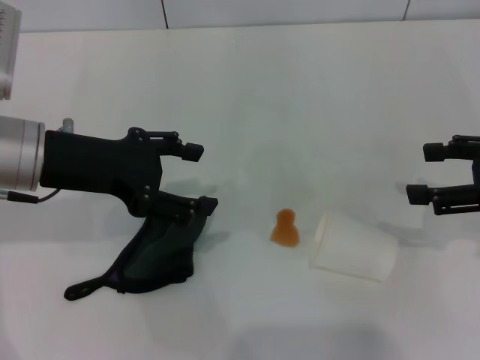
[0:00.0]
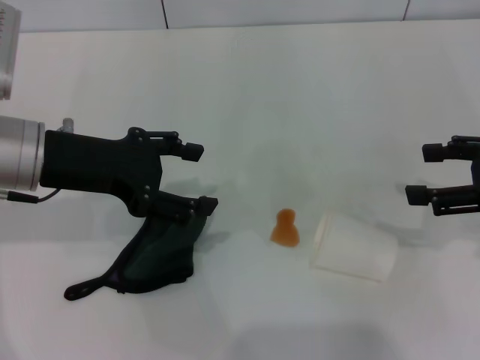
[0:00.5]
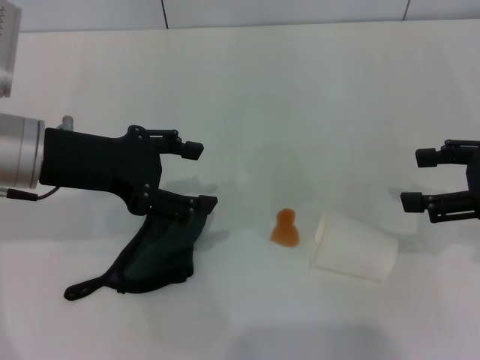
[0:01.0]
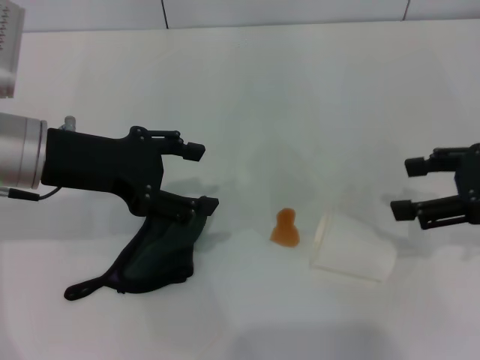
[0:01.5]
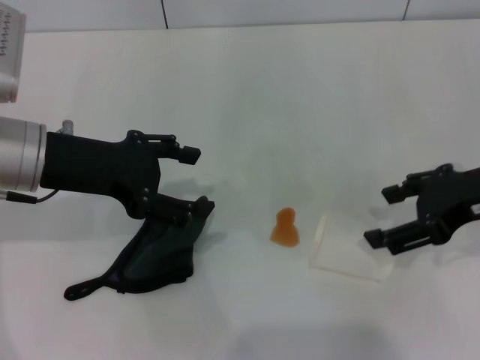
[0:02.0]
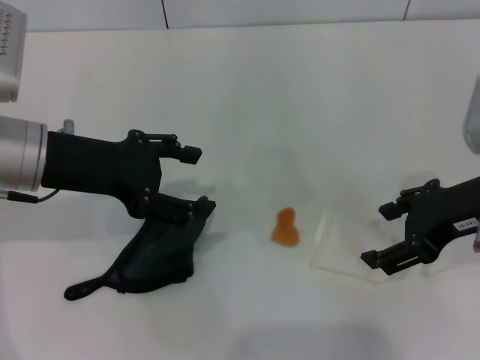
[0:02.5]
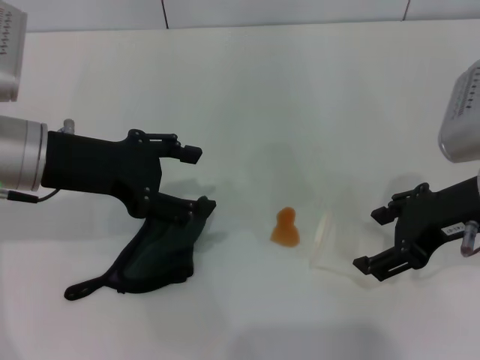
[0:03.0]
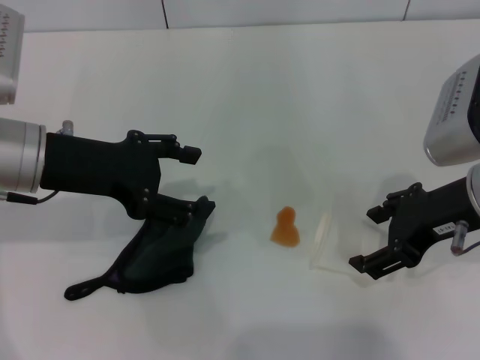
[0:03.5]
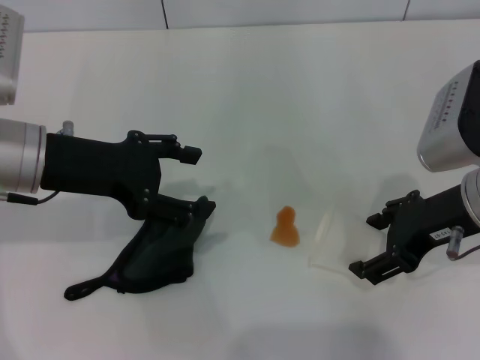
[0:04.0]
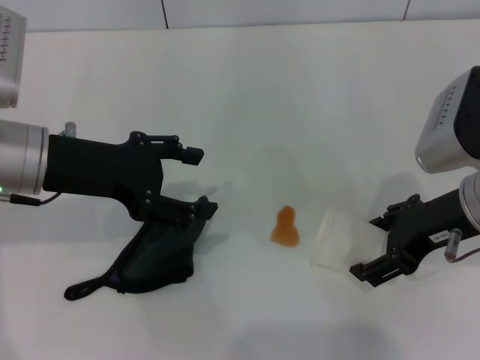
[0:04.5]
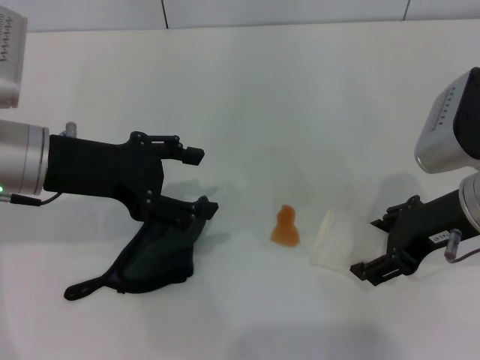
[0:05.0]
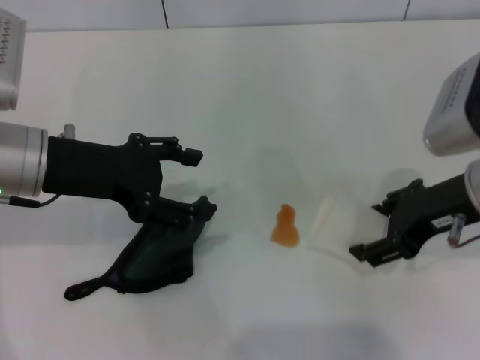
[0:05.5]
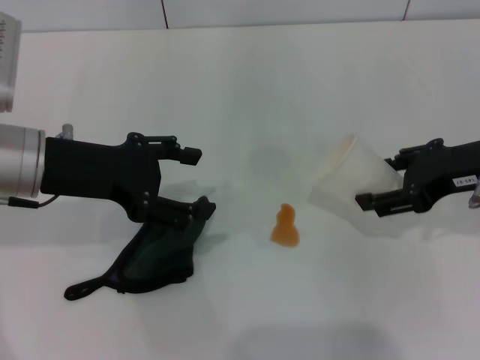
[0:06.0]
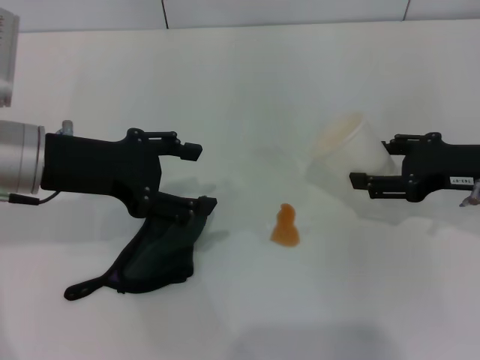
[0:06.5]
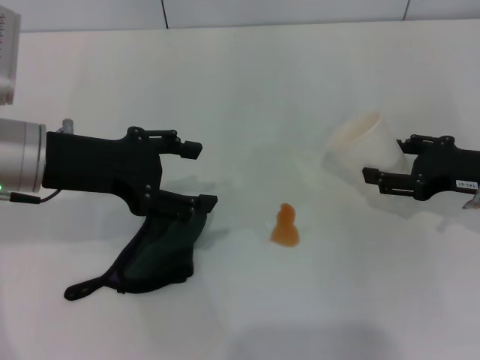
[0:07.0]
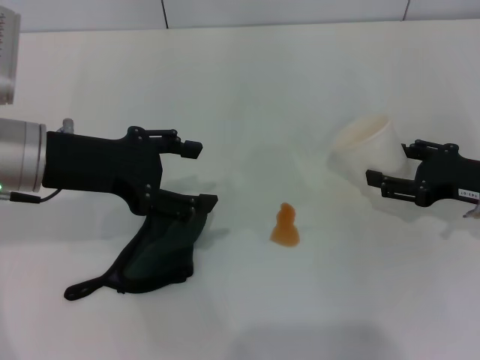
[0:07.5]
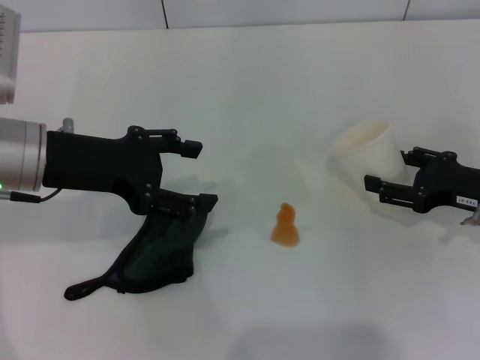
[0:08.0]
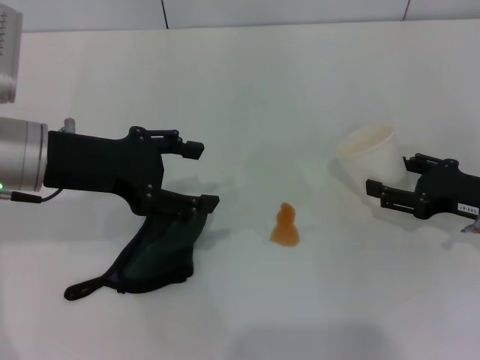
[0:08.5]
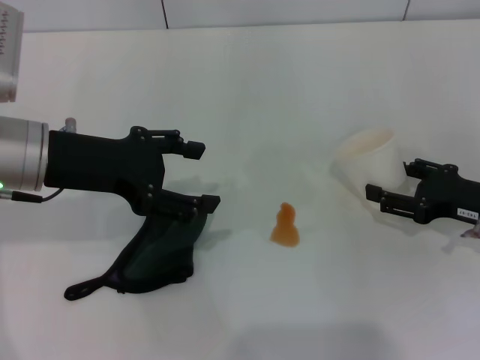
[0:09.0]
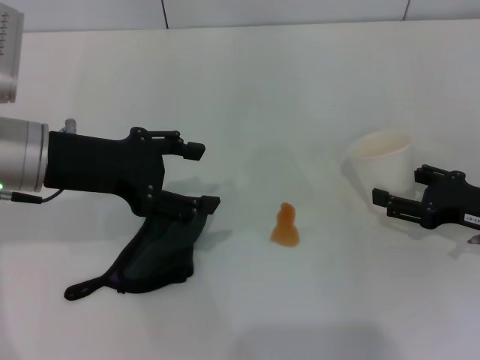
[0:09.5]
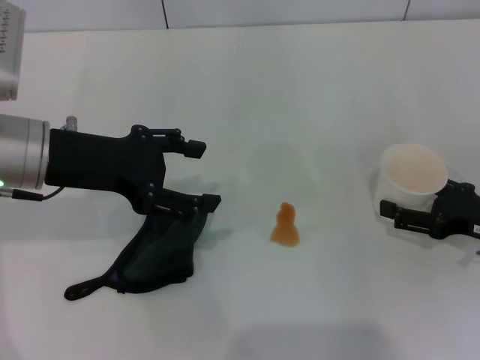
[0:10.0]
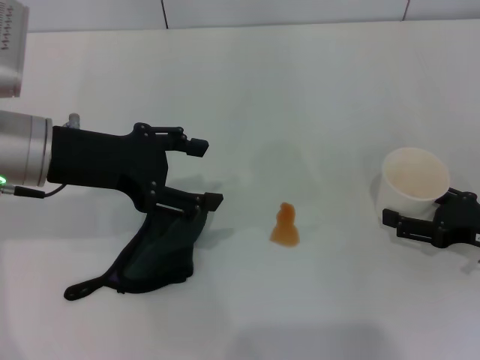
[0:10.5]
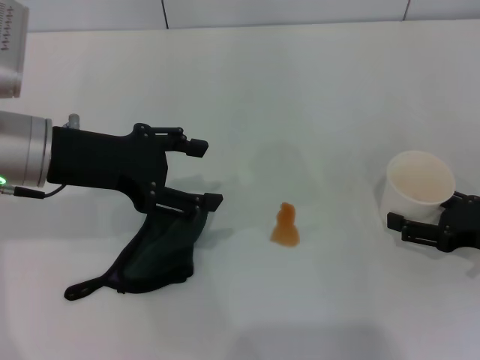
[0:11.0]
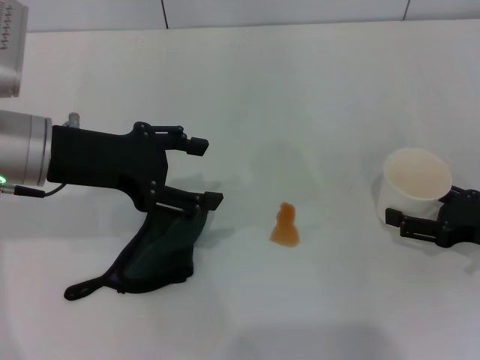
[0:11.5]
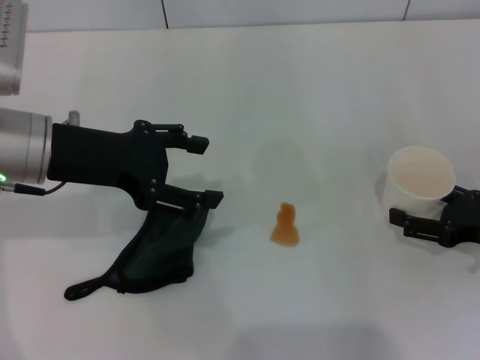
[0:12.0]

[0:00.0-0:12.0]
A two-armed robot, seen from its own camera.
Step, 0:00.0 to 0:05.0: Grasp the paper cup with the right gripper.
0:00.0 to 0:02.0: The right gripper is displaced to the left by some 5 cm.
0:02.0 to 0:04.0: The right gripper changes place by approximately 5 cm.
0:04.0 to 0:06.0: The right gripper closes up.
0:06.0 to 0:08.0: The right gripper travels downward by some 10 cm.
0:08.0 to 0:10.0: The right gripper opens.
0:10.0 to 0:12.0: Both grippers stay put.

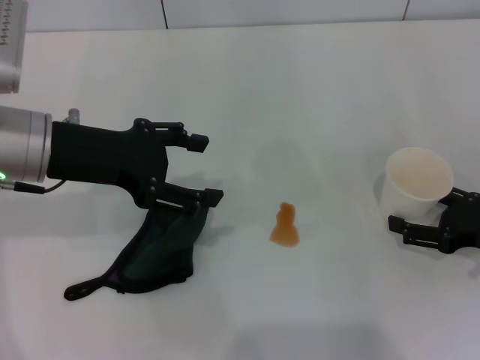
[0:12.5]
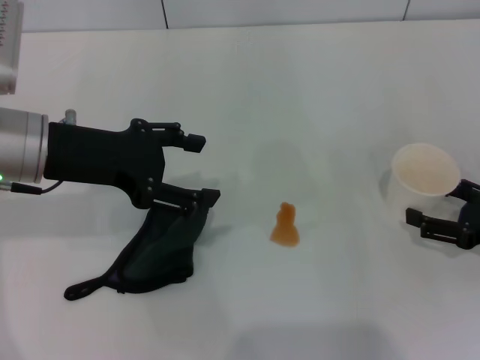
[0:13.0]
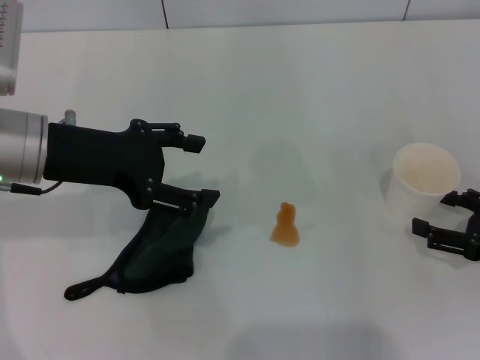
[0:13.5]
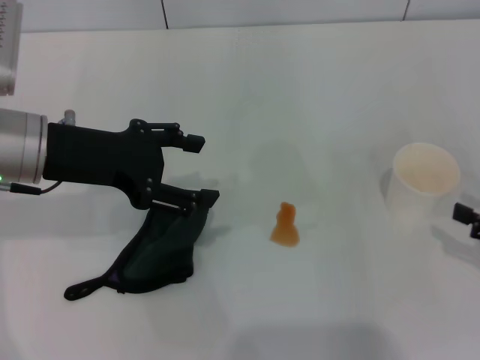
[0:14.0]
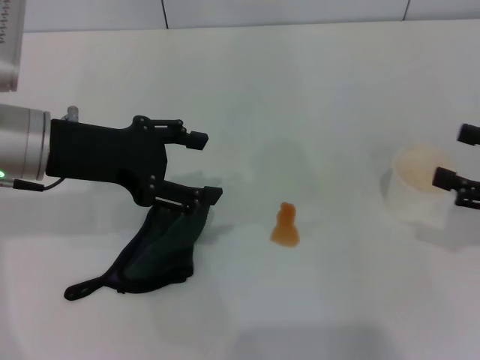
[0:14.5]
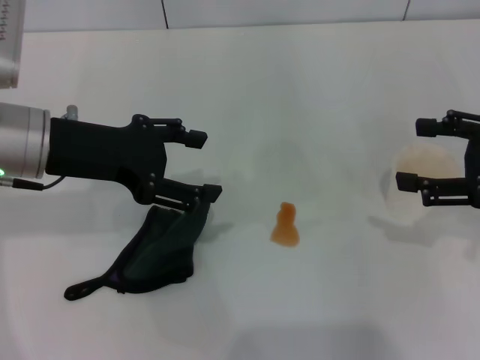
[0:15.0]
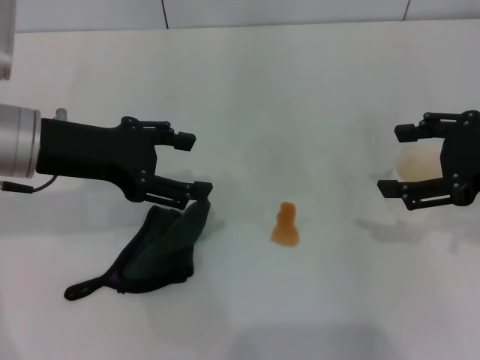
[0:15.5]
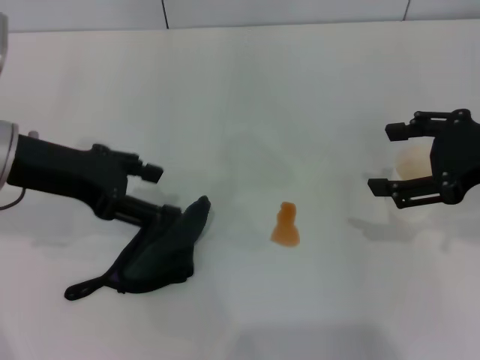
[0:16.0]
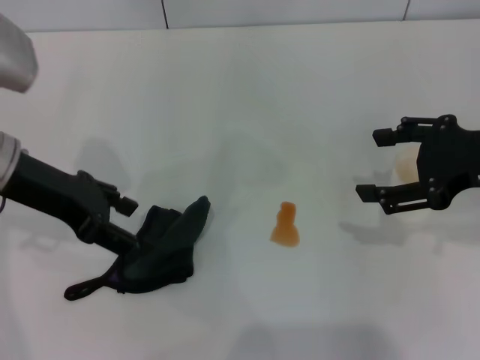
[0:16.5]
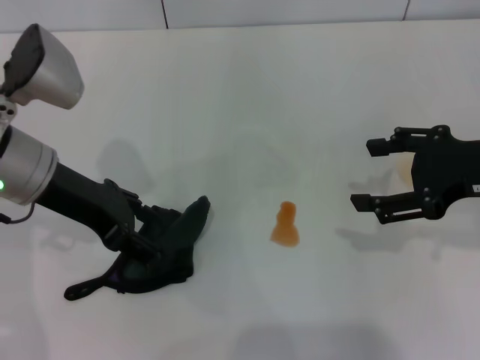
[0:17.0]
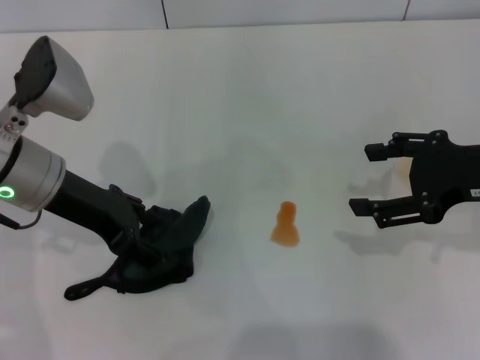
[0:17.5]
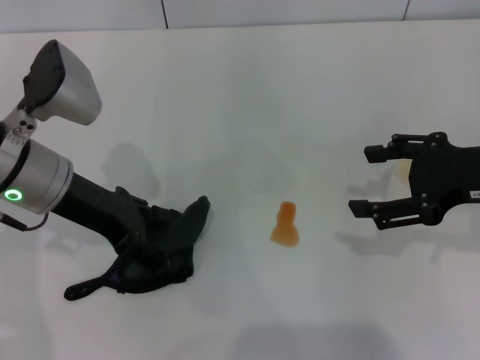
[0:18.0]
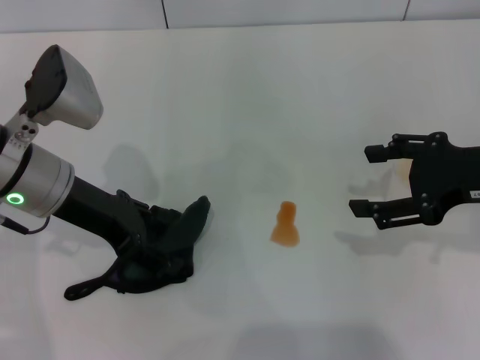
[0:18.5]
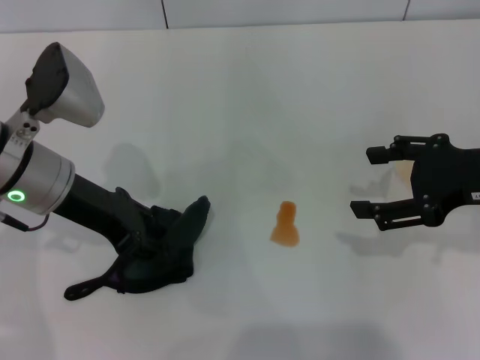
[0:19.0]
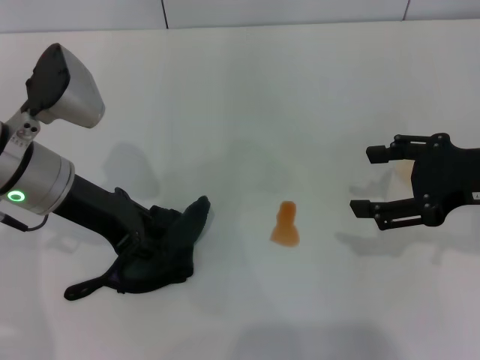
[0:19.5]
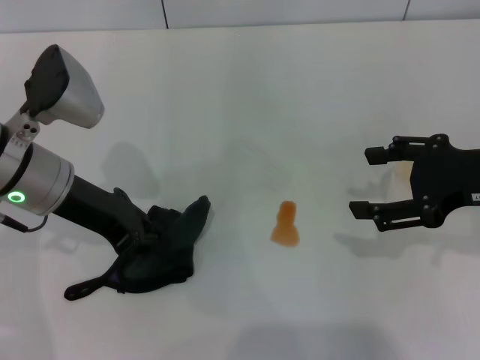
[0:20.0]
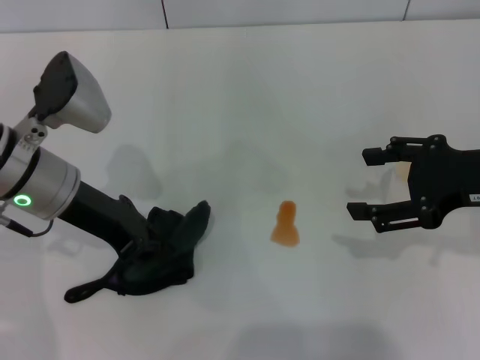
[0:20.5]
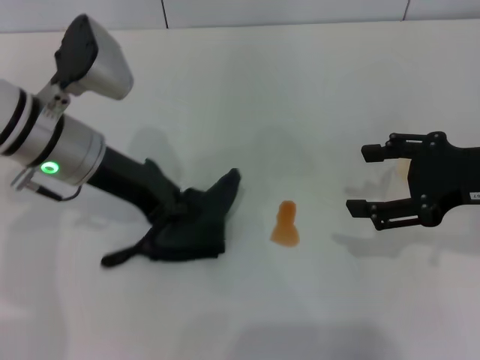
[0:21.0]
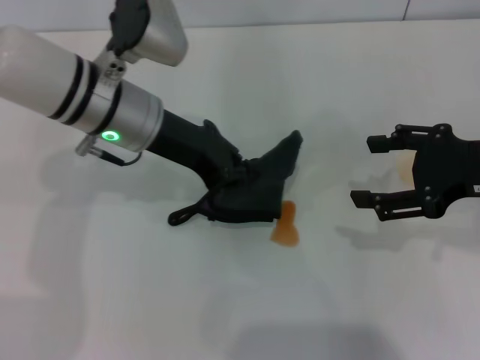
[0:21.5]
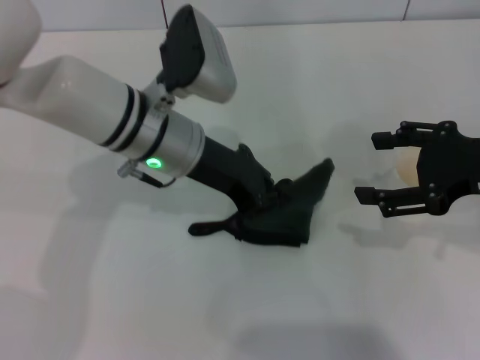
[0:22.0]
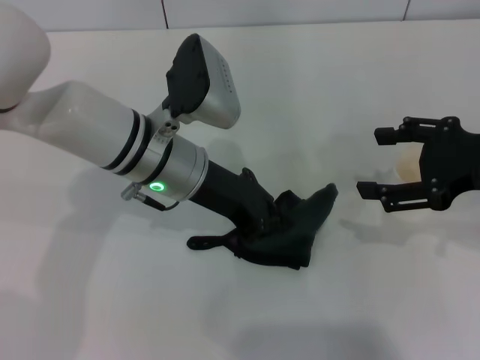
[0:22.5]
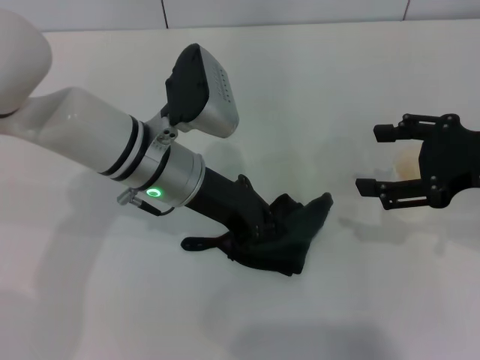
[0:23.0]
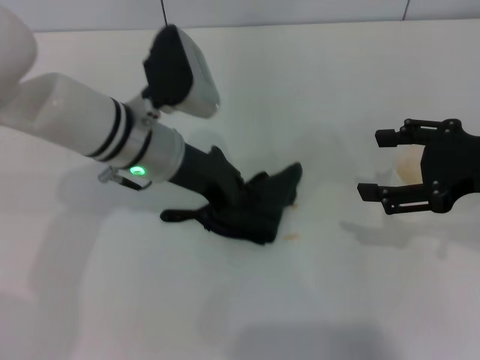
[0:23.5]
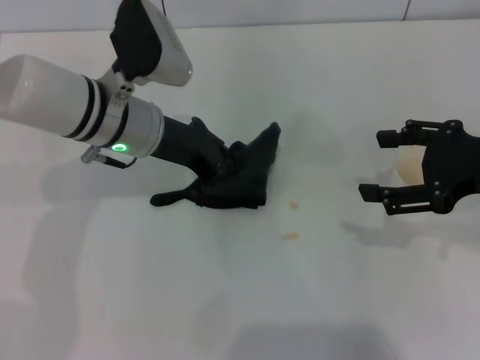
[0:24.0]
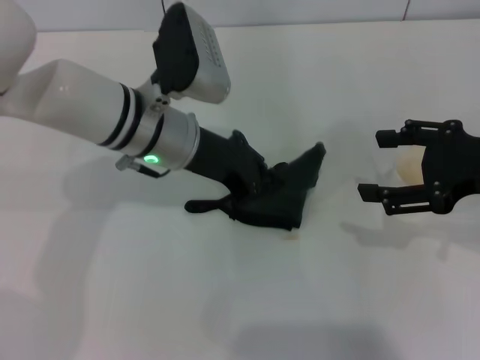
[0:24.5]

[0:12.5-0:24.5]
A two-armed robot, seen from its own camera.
Step, 0:13.5 to 0:20.5: Grasp the rag with the left gripper.
0:12.5 to 0:14.5: The right gripper goes roughly 10 cm upward.
0:14.5 to 0:16.5: The right gripper travels to the left and upward by some 10 cm.
0:16.5 to 0:18.5: The left gripper moves approximately 5 cm.
0:18.5 to 0:20.5: The left gripper closes.
0:20.5 to 0:22.5: The left gripper travels to the right by some 10 cm.
0:22.5 to 0:24.5: The grippers stay close to where they were, moving slightly.

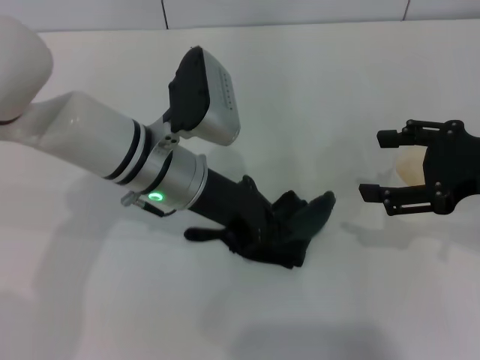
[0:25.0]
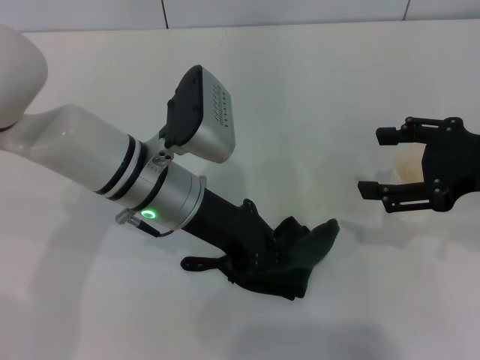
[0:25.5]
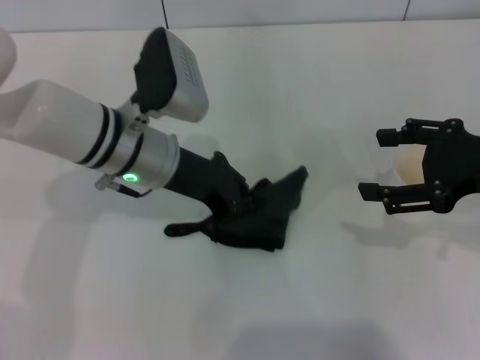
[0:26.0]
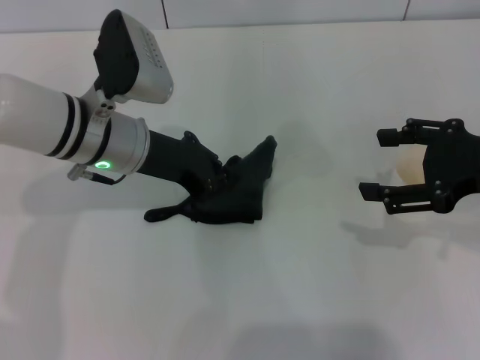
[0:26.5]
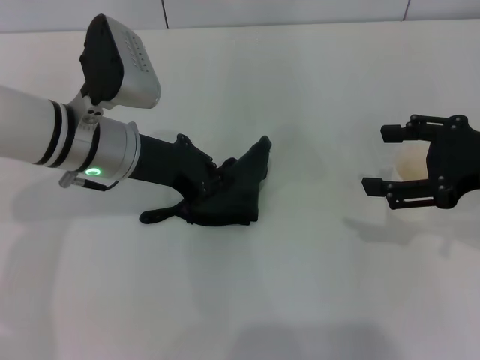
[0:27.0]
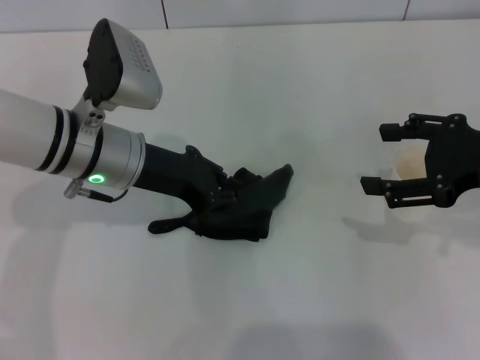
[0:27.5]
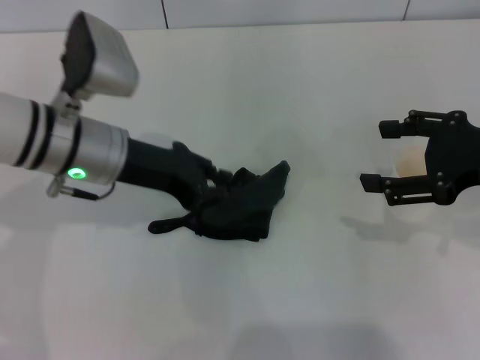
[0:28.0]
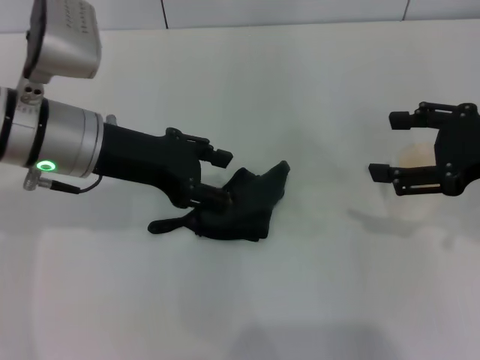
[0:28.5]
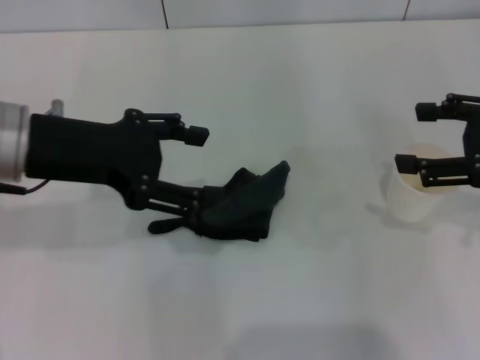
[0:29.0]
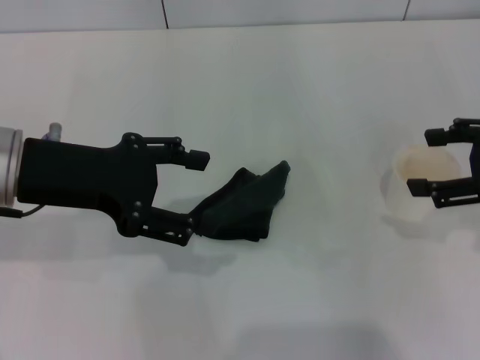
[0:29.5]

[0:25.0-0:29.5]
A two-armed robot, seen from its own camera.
Step, 0:26.0 to 0:28.0: Place the rag on the table with the left gripper.
0:25.0 to 0:27.0: The left gripper goes roughly 5 cm to the left.
0:27.0 to 0:29.5: The left gripper goes approximately 10 cm upward, backward and to the left, and opens its fingers.
